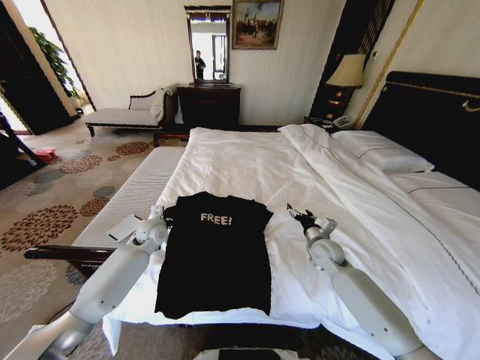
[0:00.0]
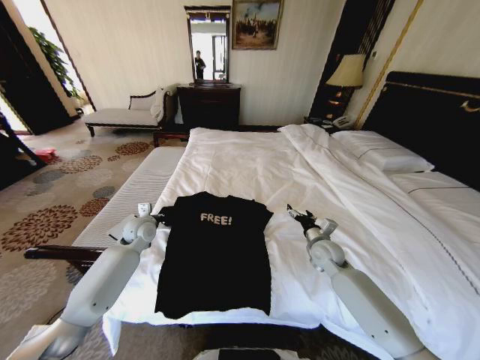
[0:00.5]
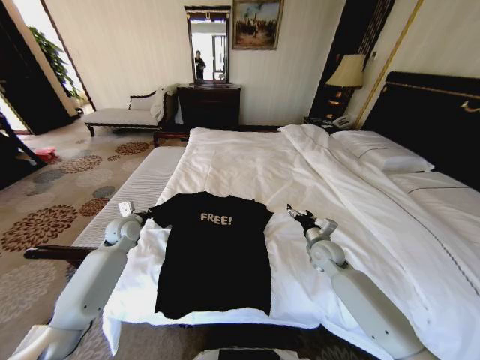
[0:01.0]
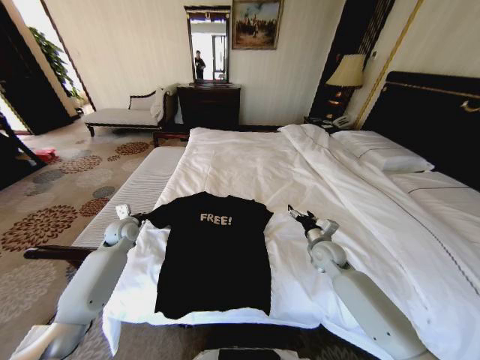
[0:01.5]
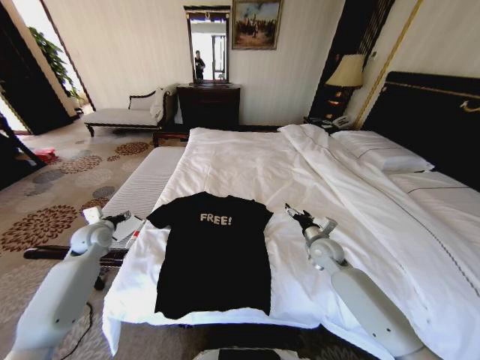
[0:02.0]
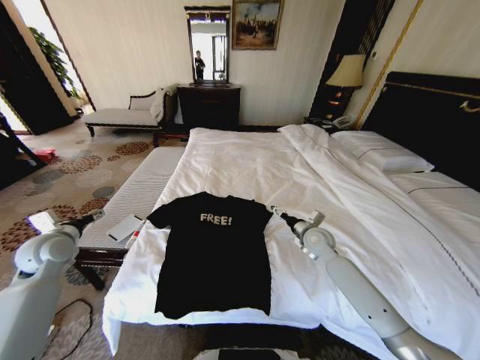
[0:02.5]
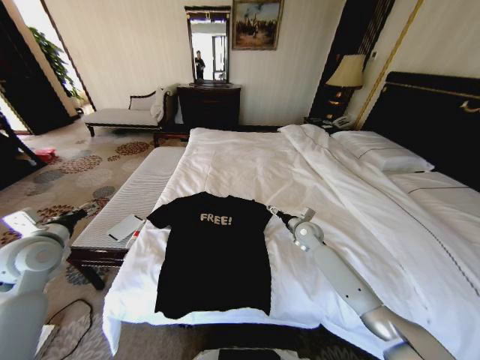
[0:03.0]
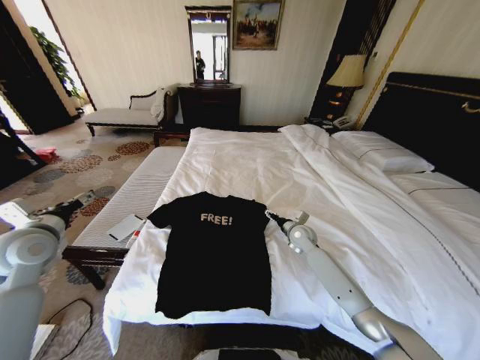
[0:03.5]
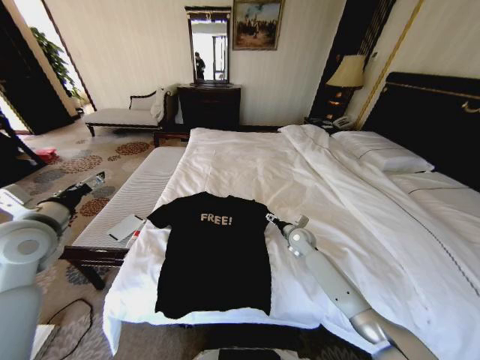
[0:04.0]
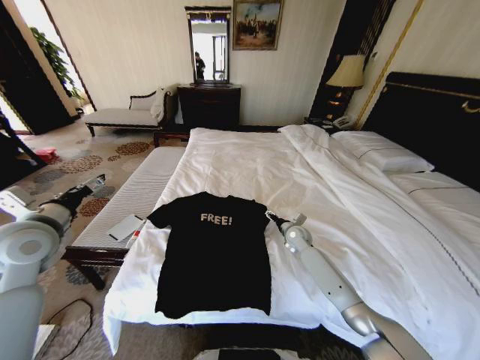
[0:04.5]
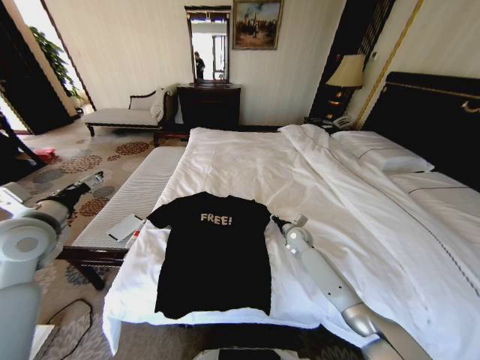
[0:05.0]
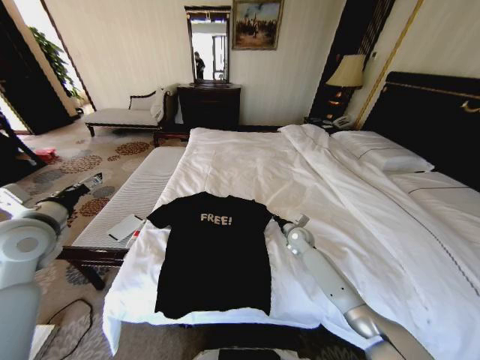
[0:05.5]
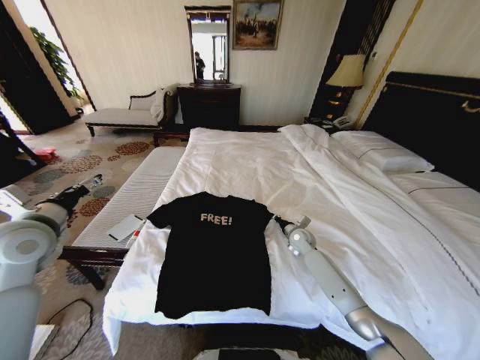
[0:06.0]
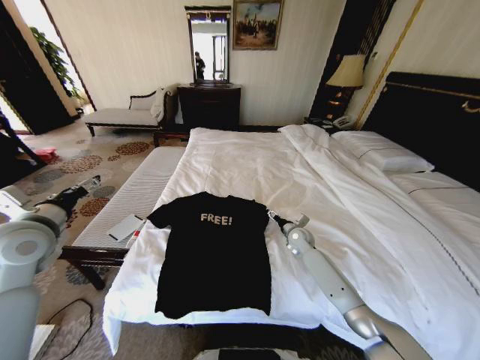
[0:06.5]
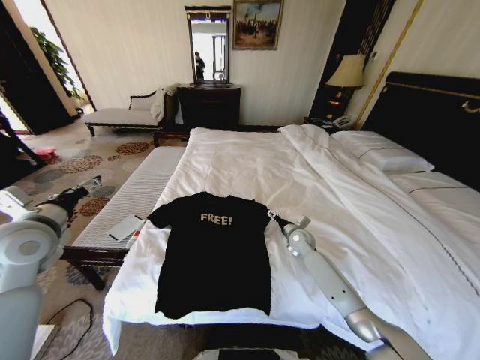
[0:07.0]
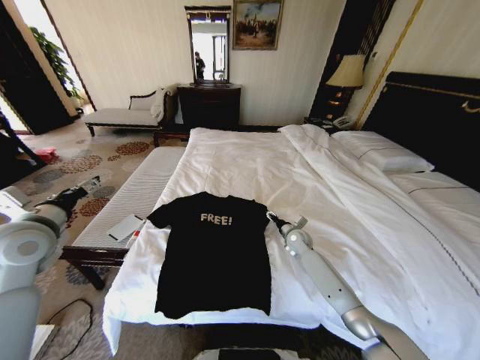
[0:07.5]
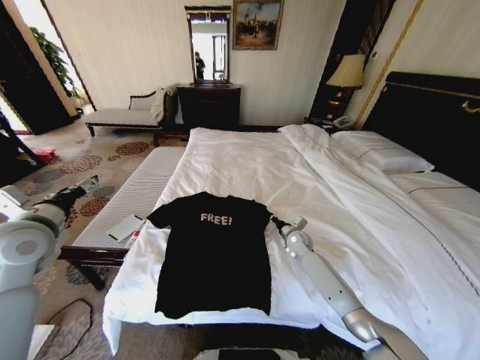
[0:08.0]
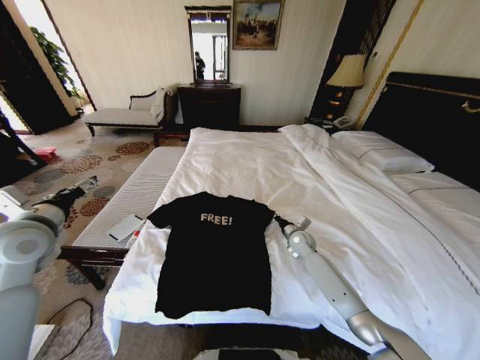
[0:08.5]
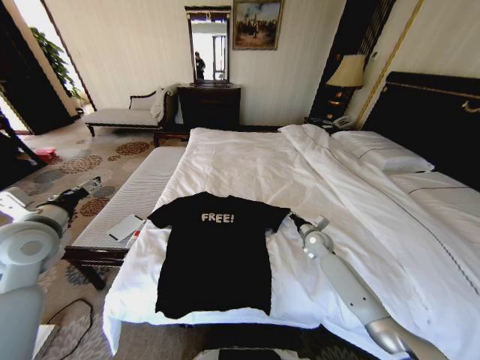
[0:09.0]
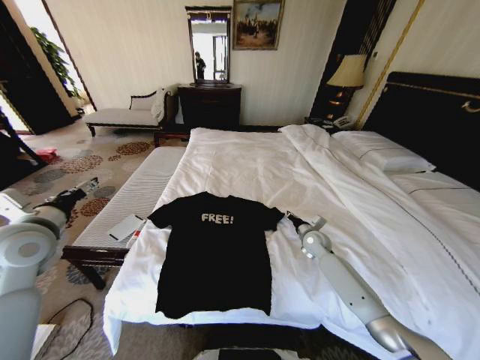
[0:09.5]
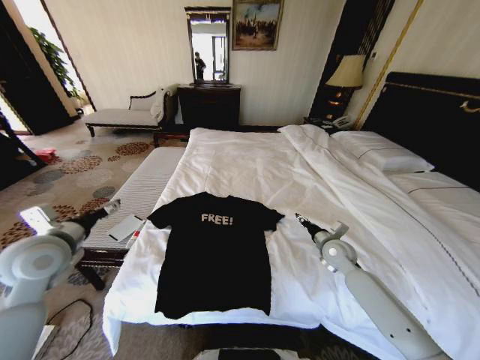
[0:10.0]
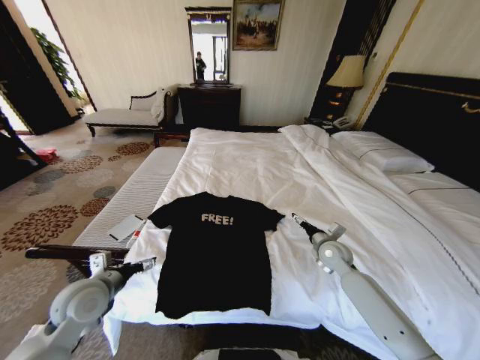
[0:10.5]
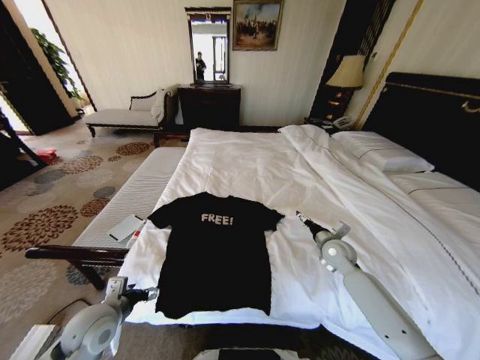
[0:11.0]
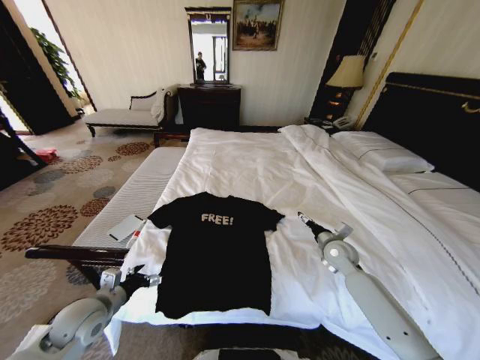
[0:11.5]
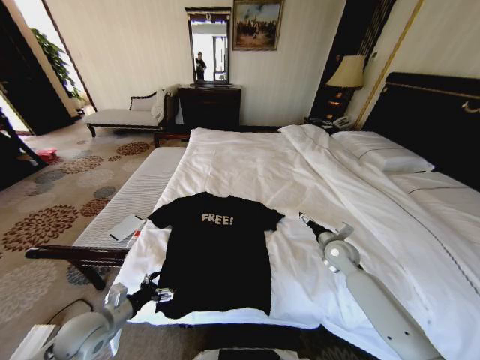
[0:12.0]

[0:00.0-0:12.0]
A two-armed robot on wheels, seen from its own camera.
Task of the whole recording: Fold the clothes on the bed.
0:00.0 to 0:02.0: The left gripper heads to the left, covering roughly 15 cm, and opens its fingers.
0:02.0 to 0:04.0: The left gripper goes about 20 cm upward and backward. Meanwhile the right gripper shifts some 5 cm forward.
0:04.0 to 0:06.0: The right gripper closes up.
0:06.0 to 0:08.0: The right gripper opens, then closes once more.
0:08.0 to 0:10.0: The right gripper heads backward, to the right and upward, covering approximately 15 cm, and opens its fingers.
0:10.0 to 0:12.0: The left gripper heads downward and backward, covering about 20 cm. The right gripper opens.

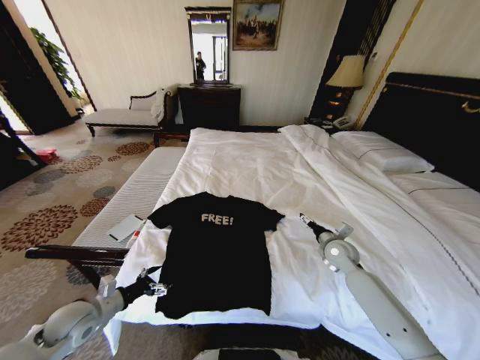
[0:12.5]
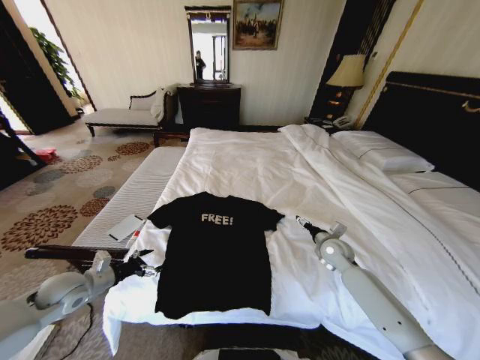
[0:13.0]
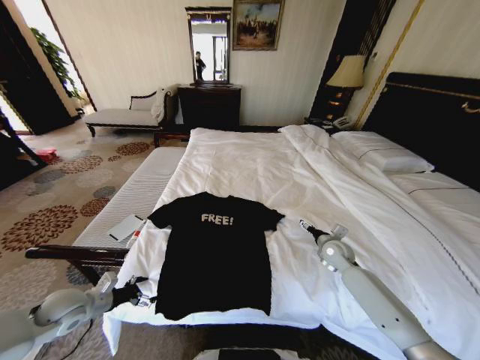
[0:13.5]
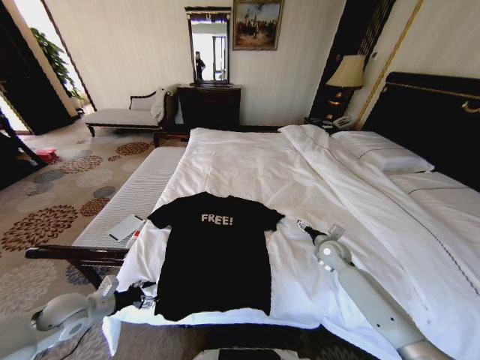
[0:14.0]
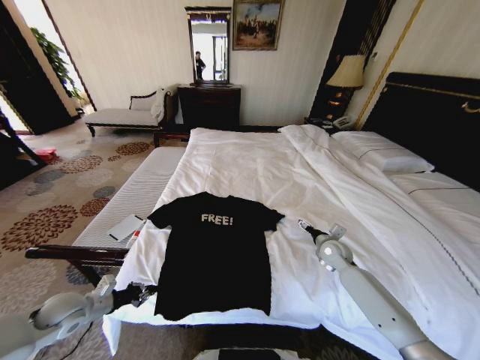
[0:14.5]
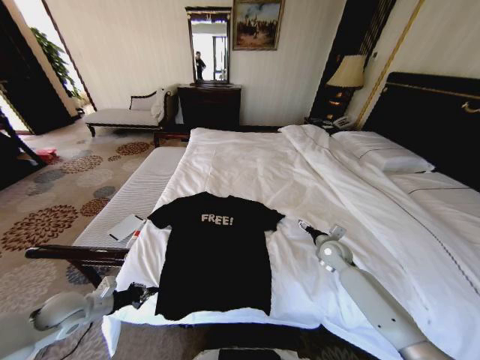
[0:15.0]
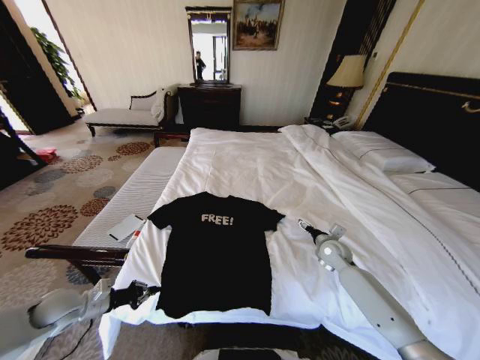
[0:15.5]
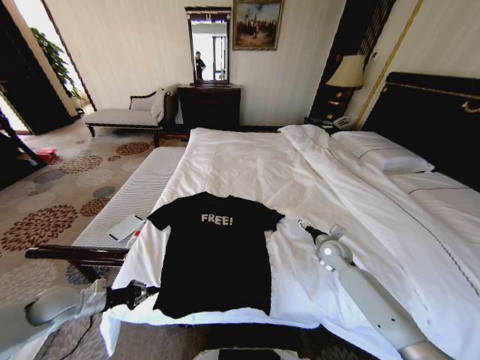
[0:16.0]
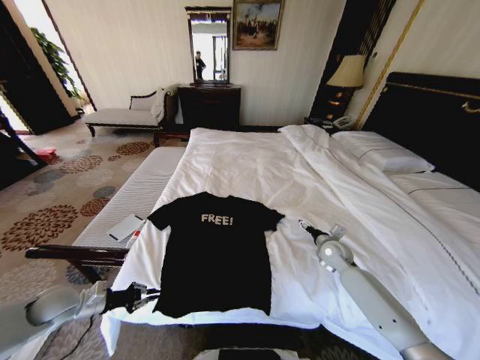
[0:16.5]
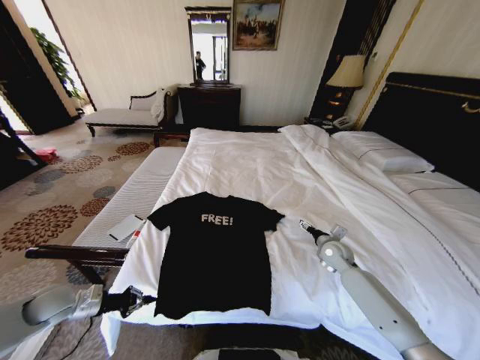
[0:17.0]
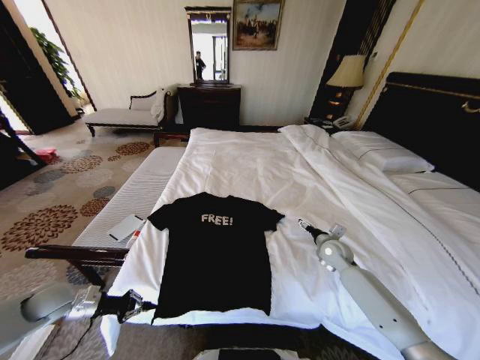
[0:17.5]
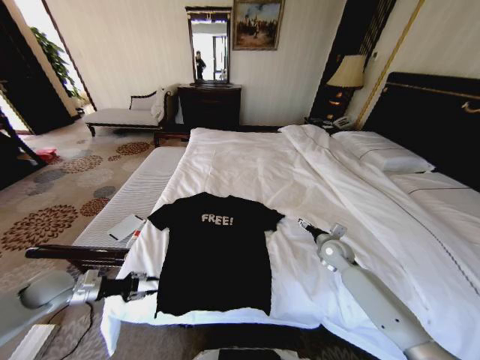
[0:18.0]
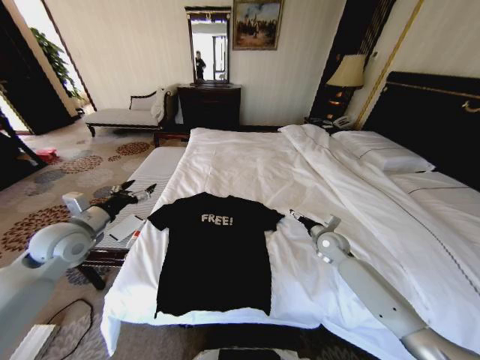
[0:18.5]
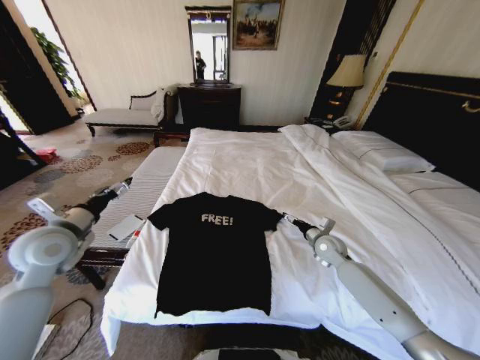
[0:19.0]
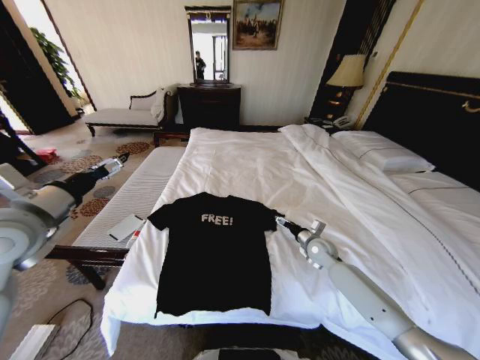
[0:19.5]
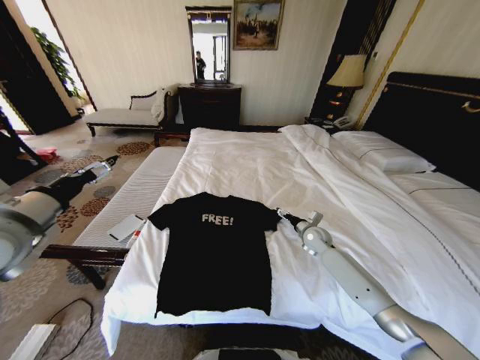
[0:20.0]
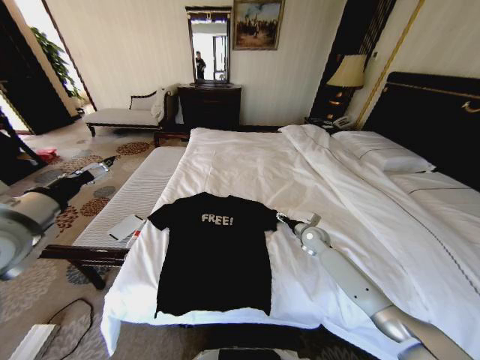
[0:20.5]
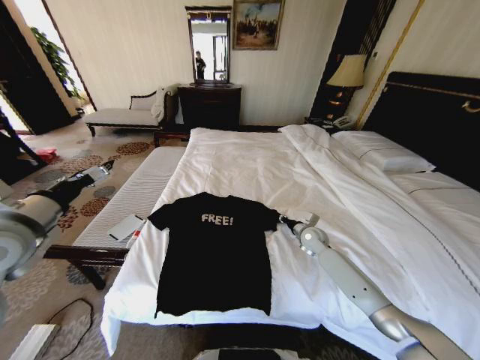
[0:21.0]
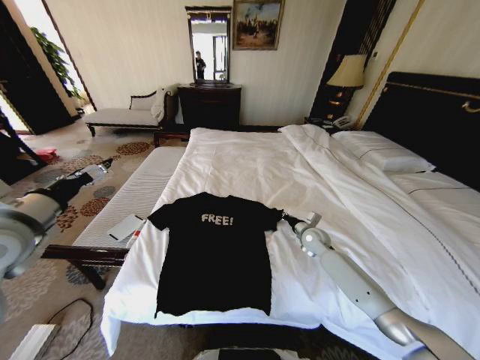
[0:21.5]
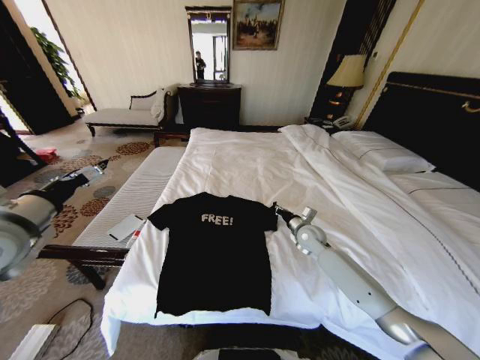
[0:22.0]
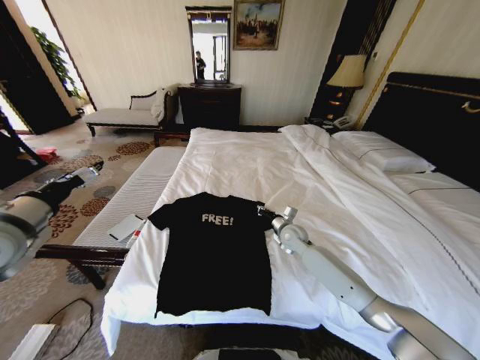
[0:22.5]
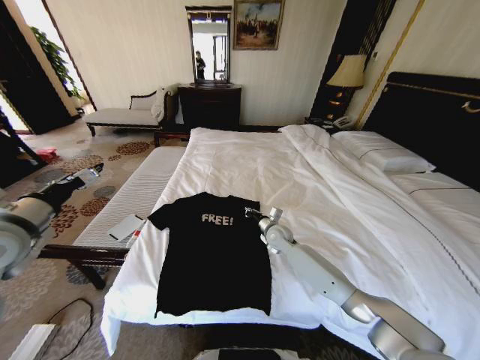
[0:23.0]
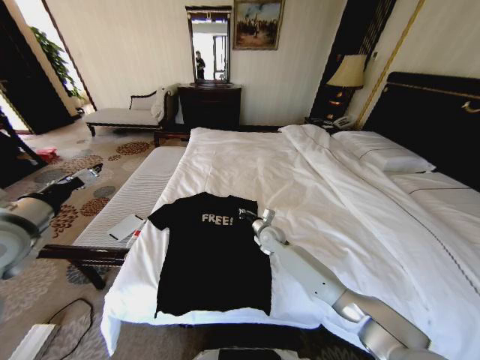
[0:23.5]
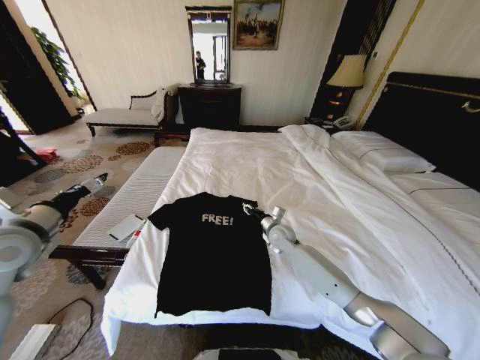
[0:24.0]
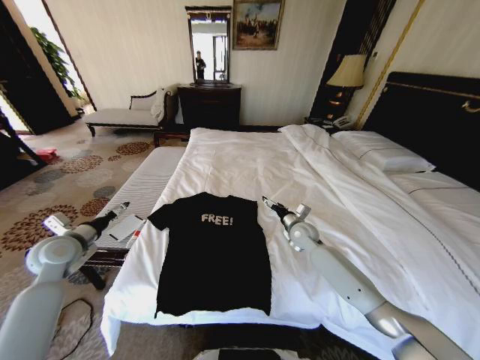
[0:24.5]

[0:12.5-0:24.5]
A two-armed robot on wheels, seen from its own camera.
Task of the whole recording: Fold the clothes on the bed.
0:12.5 to 0:14.5: The left gripper closes its fingers.
0:16.5 to 0:18.5: The left gripper goes roughly 20 cm upward, forward and to the right, and opens up.
0:18.5 to 0:20.5: The right gripper changes place by about 5 cm. The left gripper is displaced upward and backward by approximately 10 cm.
0:20.5 to 0:22.5: The right gripper goes some 10 cm to the left, and closes its fingers.
0:22.5 to 0:24.5: The right gripper goes to the left and returns, roughly 10 cm each way, and opens up. Meanwhile the left gripper heads downward and forward, covering some 15 cm.

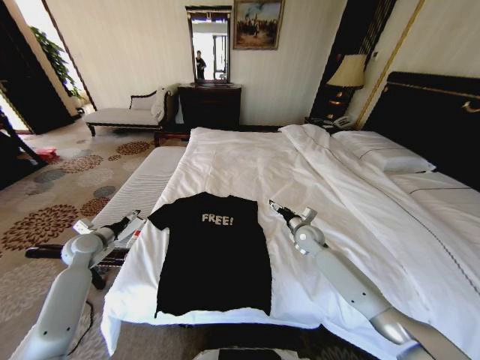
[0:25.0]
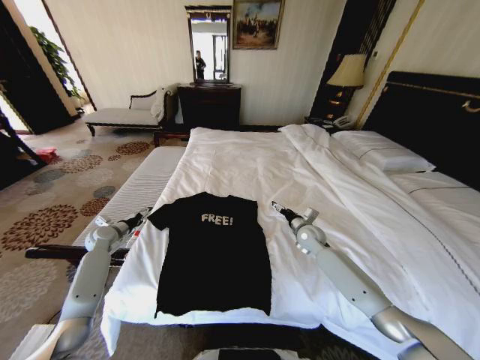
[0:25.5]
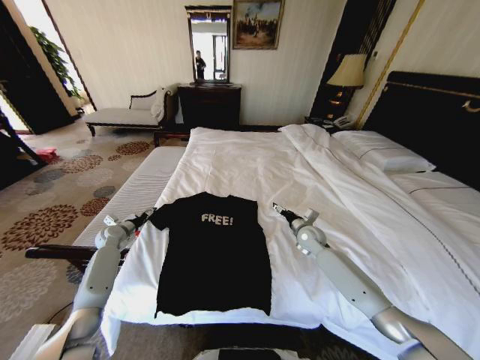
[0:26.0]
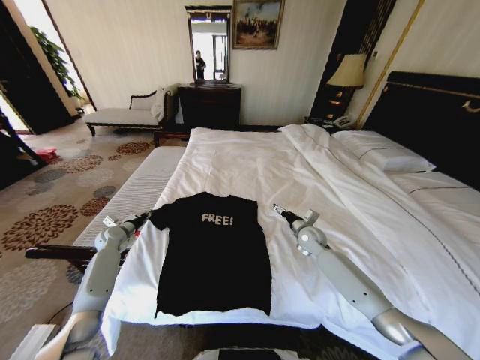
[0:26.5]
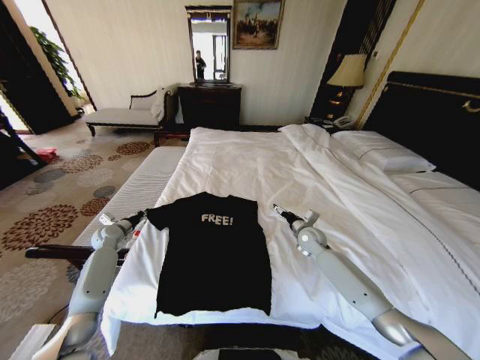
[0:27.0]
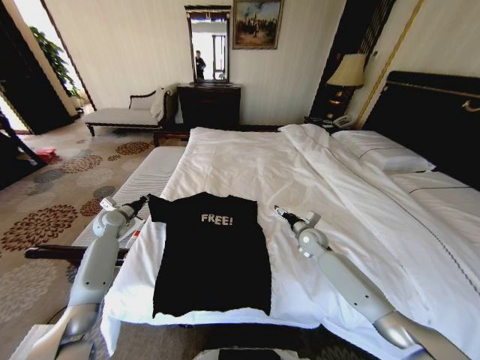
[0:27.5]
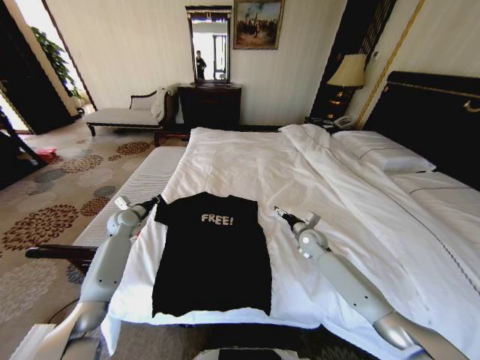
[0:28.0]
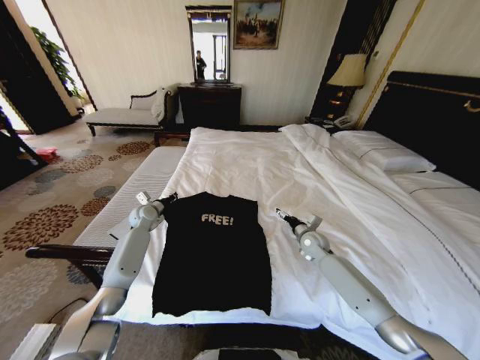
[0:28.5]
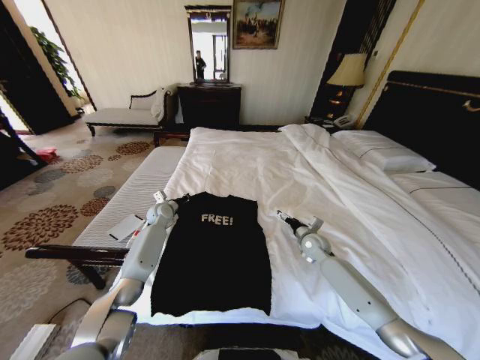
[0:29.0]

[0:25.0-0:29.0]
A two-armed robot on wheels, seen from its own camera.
Task of the whole recording: Fold the clothes on the bed.
0:25.0 to 0:27.0: The left gripper goes about 10 cm forward and downward, and closes up.
0:27.0 to 0:29.0: The left gripper moves to the right and forward, about 20 cm.
